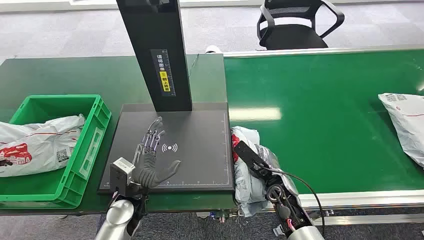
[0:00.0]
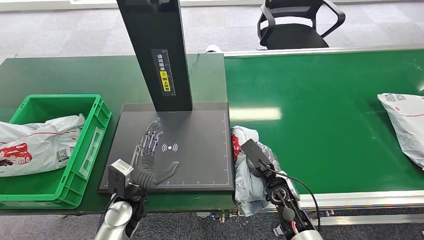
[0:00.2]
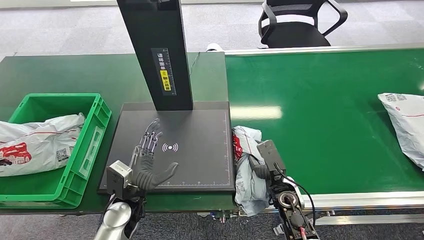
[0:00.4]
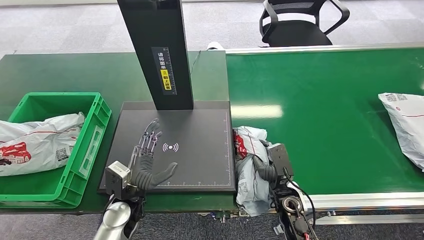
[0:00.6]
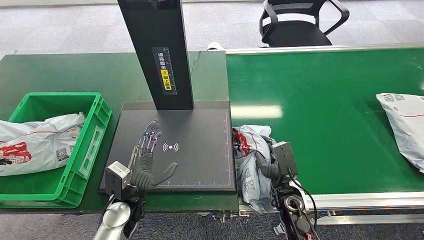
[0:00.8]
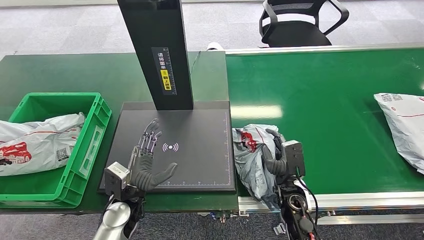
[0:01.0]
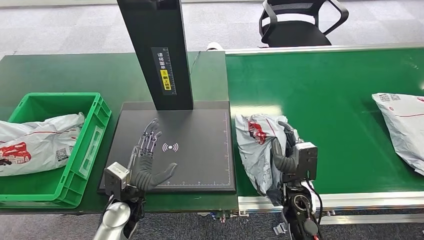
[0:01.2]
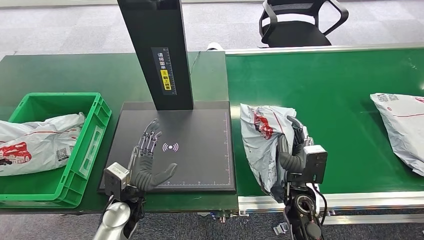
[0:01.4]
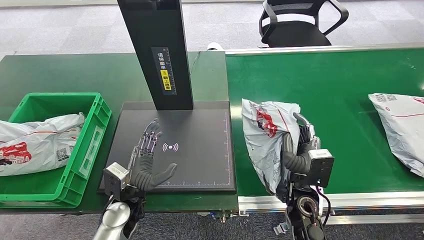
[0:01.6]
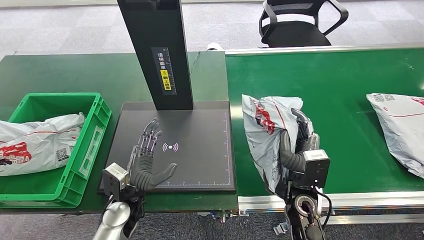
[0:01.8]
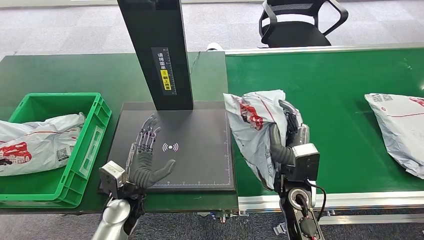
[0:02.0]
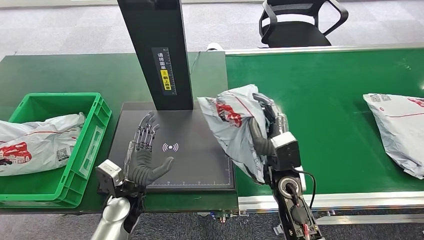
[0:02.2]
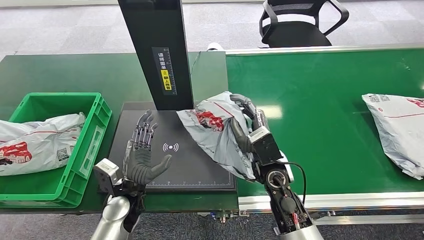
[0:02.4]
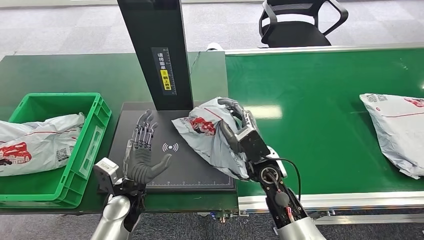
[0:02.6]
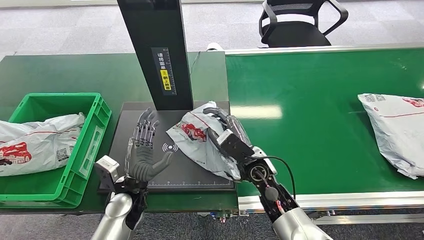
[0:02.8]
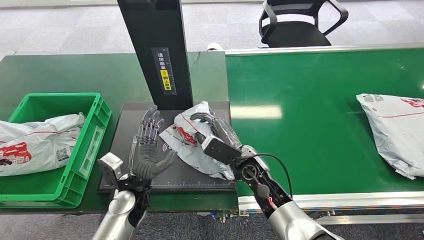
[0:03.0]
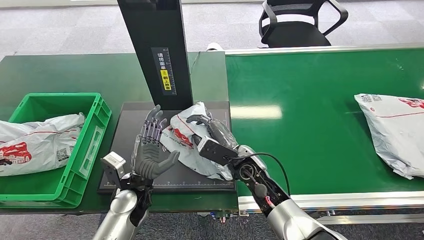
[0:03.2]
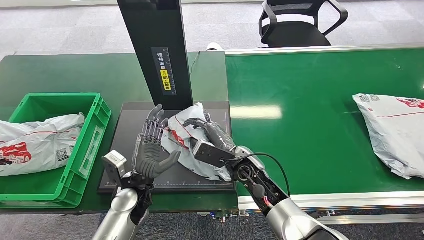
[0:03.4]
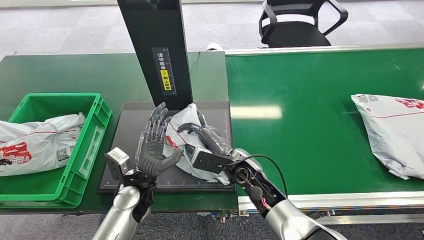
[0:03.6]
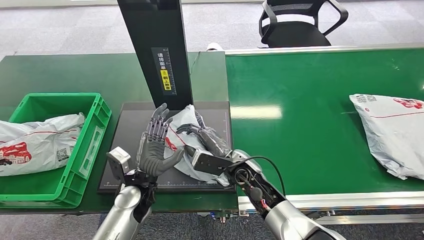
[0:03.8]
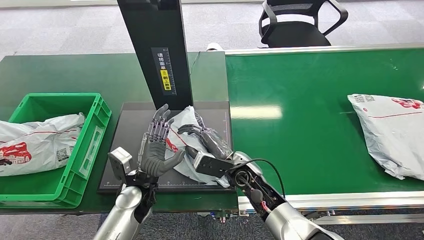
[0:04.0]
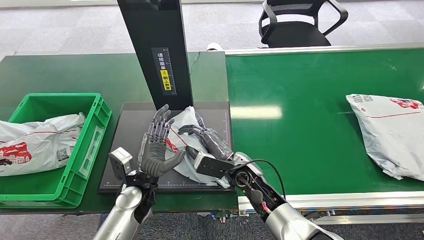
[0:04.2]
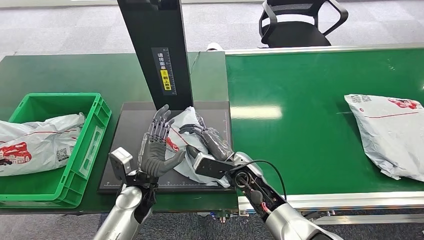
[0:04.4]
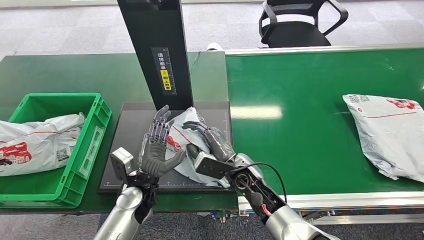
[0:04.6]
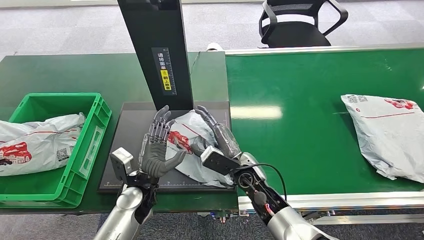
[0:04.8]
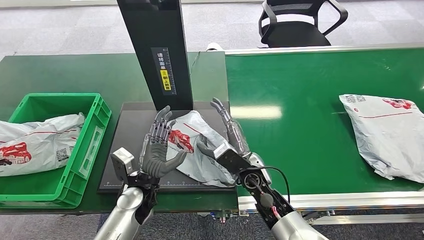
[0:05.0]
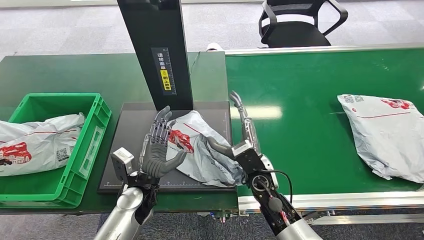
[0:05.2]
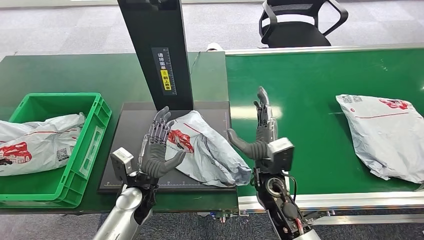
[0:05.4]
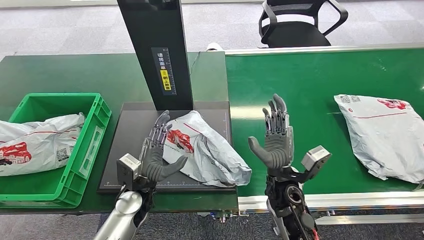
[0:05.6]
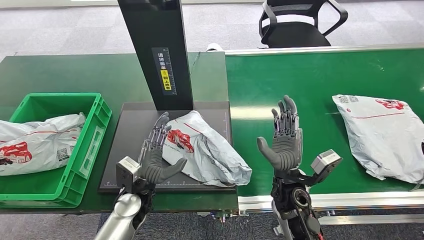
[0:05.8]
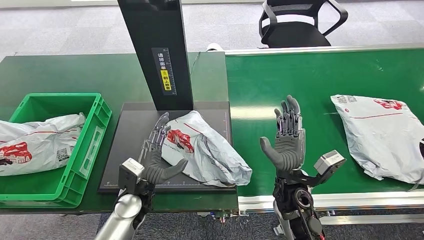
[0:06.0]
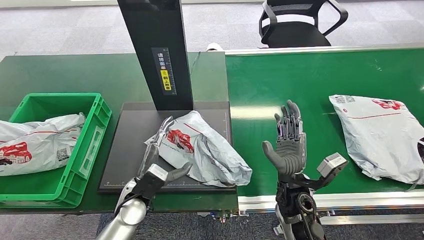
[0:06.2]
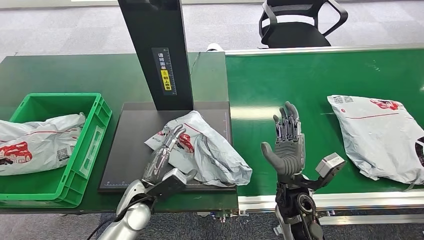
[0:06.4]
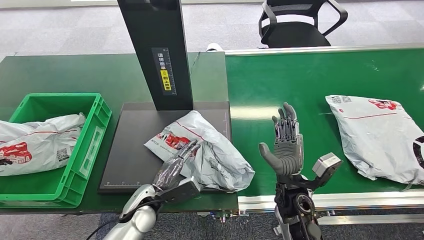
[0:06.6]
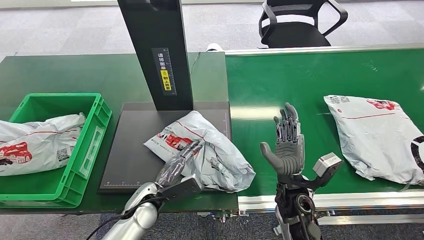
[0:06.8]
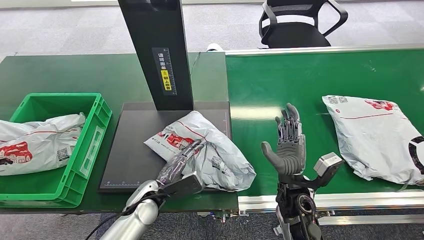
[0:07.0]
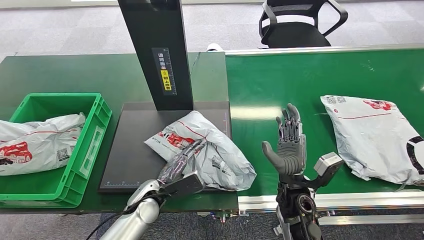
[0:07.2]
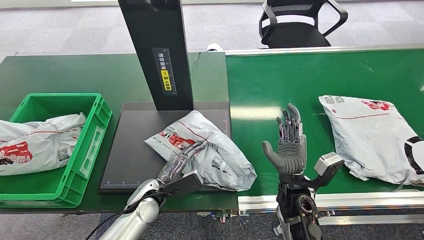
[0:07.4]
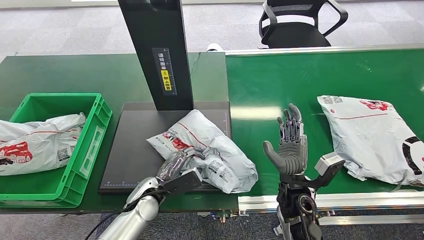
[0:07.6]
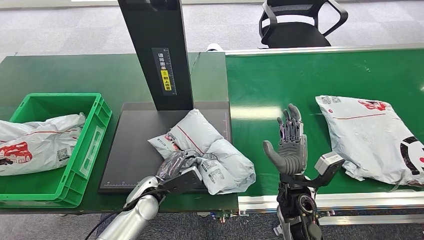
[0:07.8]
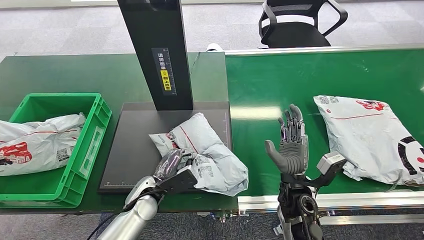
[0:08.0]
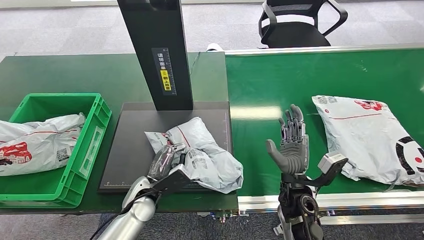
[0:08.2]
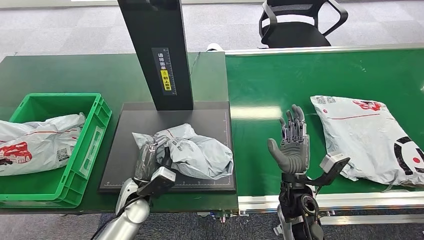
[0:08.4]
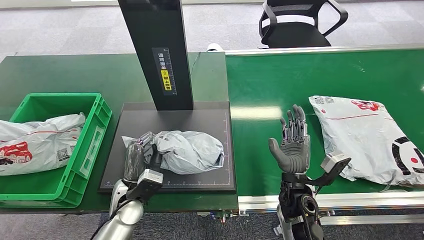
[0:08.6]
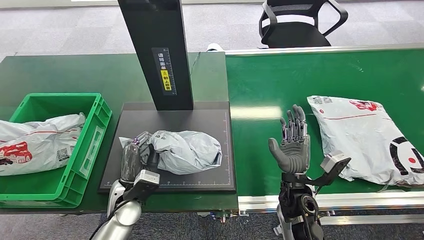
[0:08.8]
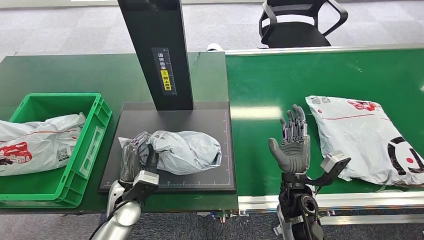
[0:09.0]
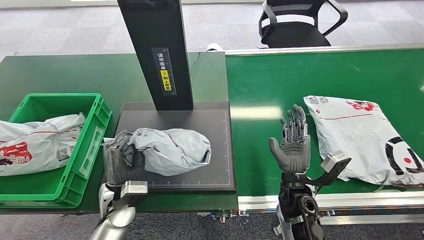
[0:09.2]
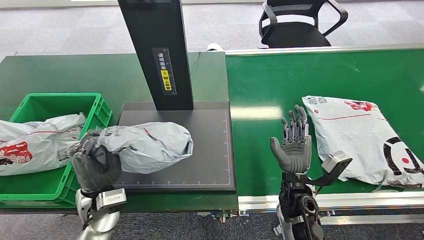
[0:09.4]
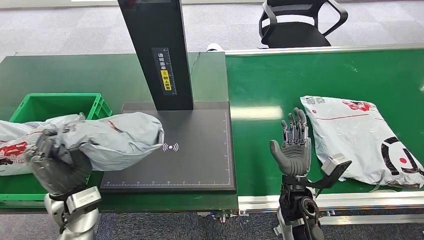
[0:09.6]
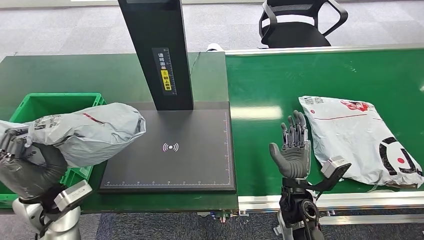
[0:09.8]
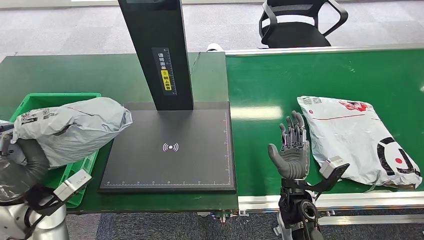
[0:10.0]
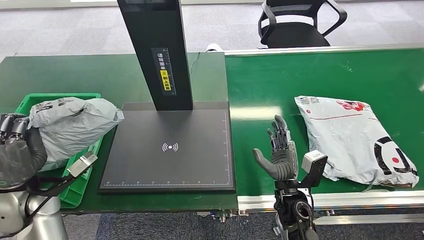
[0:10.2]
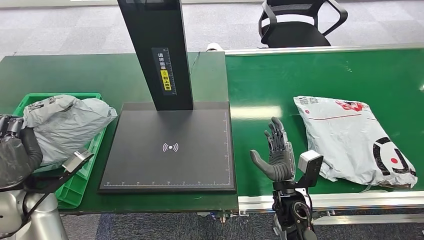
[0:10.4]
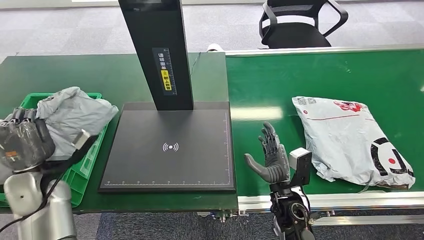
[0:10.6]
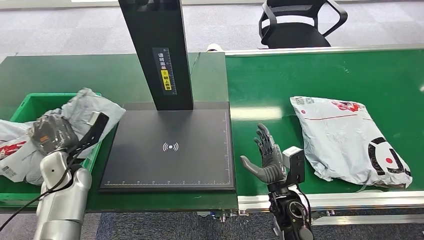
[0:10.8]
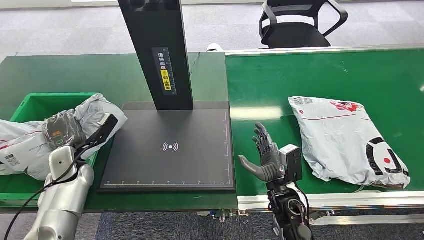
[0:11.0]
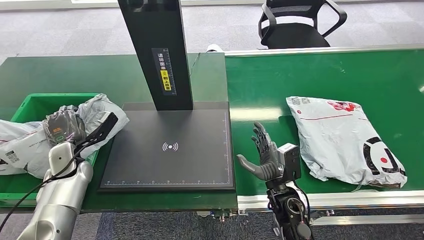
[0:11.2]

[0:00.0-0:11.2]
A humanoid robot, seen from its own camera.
Task of the whole recording: Weigh the package on the weighing device and place it in the left basket.
Step, 0:00.0 to 0:01.4: Pick up the package from the conveyor belt.
Step, 0:01.8 to 0:05.8: Place the package onto the inbound machine.
Step, 0:06.0 to 0:08.8: Pick up the package from the inbound machine.
0:01.6 to 0:03.2: The right hand heads to the left and forward, covering roughly 15 cm.
0:03.2 to 0:04.8: The hands make only small movements.
0:04.8 to 0:06.4: The right hand heads to the right and backward, covering roughly 10 cm.
0:06.4 to 0:08.0: The hands stay close to where they were, moving slightly.

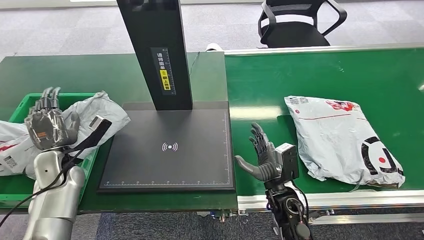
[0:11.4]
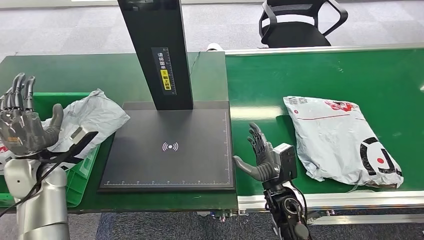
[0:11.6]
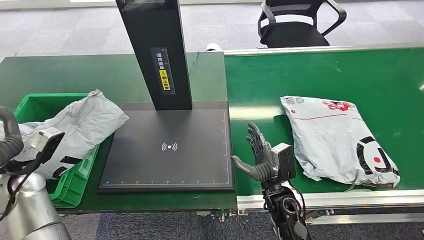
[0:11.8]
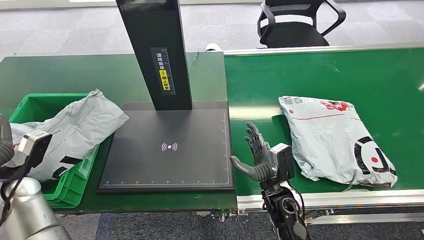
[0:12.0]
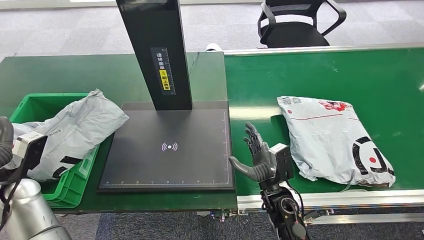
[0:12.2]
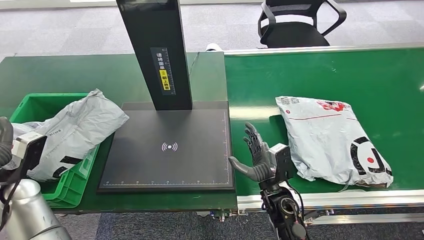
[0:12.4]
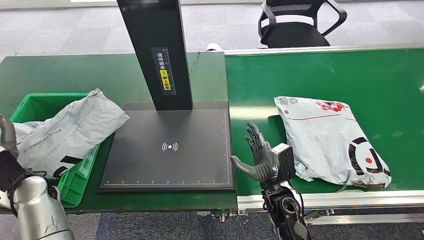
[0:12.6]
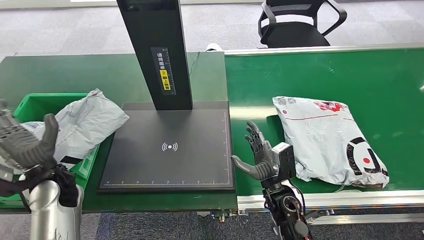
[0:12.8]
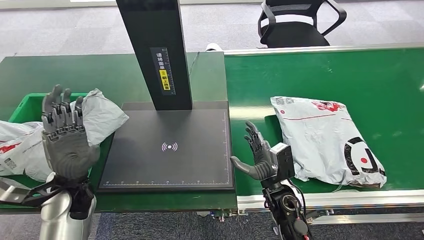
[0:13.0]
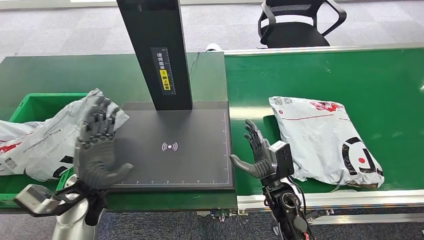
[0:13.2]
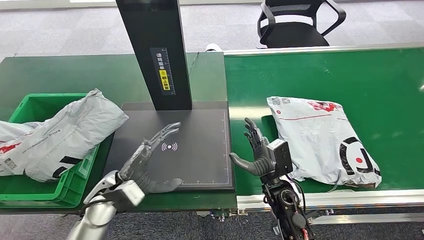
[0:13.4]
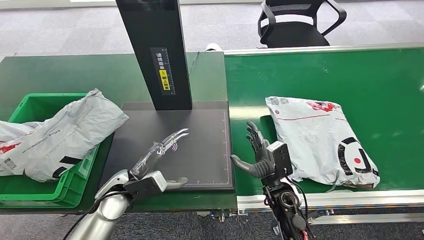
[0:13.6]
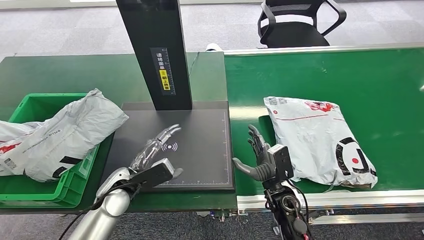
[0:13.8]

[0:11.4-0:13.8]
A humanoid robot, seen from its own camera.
Task of the whole recording: Weigh the package on the weighing device and place it in the left basket.
Step, 0:11.4 to 0:13.8: Place the package into the parcel locker.
0:11.4 to 0:12.6: The left hand shifts by approximately 5 cm.
0:12.6 to 0:13.8: The left hand travels to the right and downward by about 20 cm.

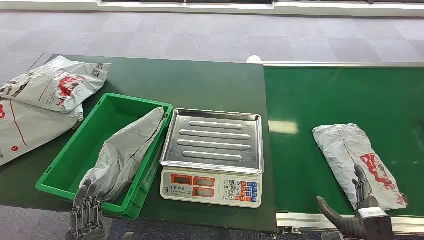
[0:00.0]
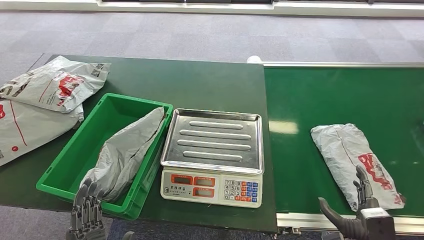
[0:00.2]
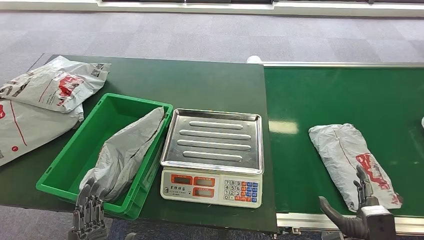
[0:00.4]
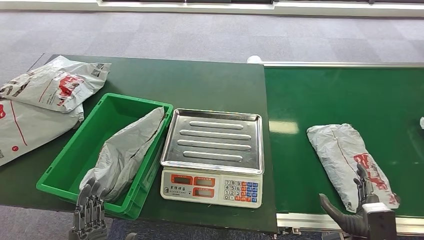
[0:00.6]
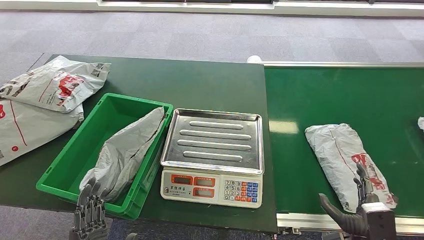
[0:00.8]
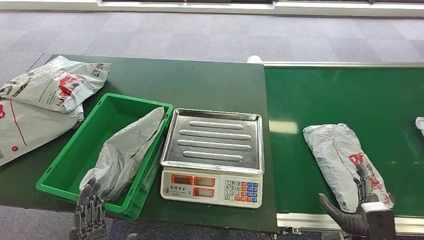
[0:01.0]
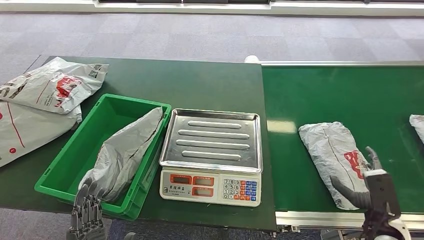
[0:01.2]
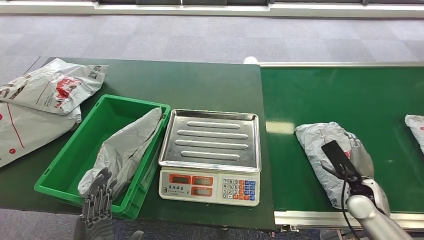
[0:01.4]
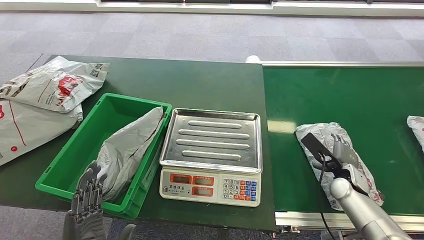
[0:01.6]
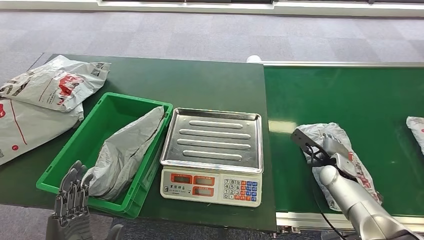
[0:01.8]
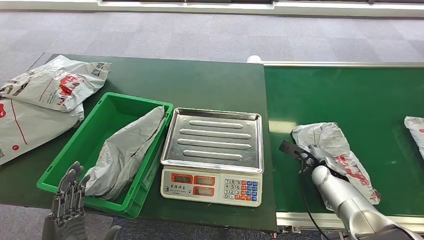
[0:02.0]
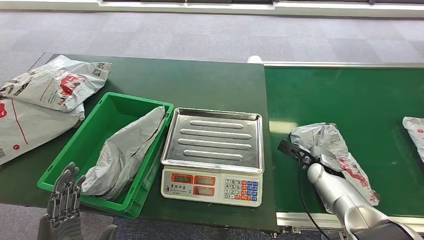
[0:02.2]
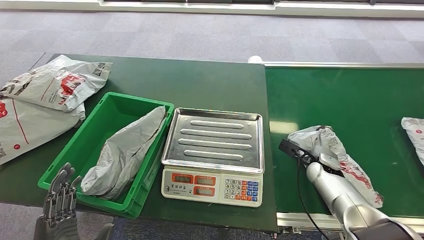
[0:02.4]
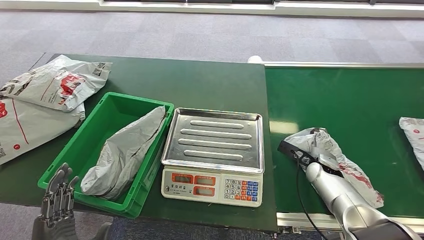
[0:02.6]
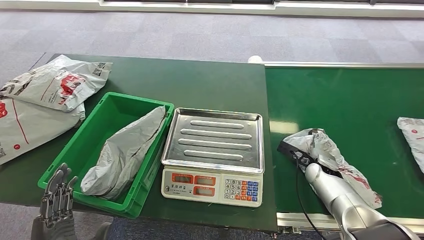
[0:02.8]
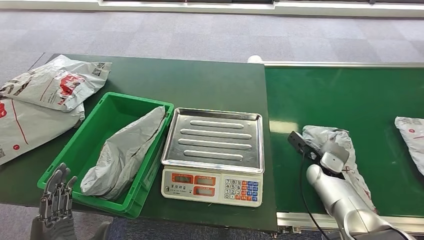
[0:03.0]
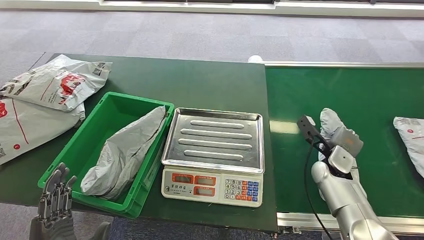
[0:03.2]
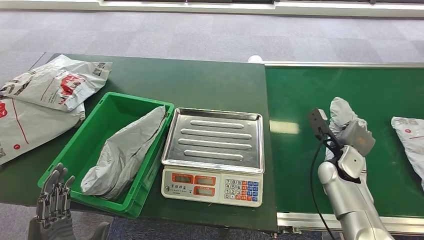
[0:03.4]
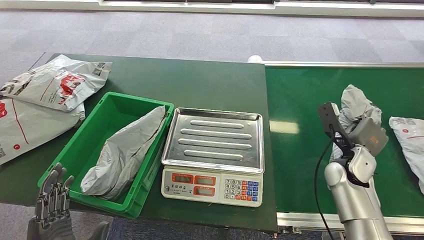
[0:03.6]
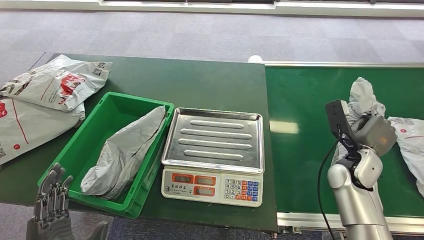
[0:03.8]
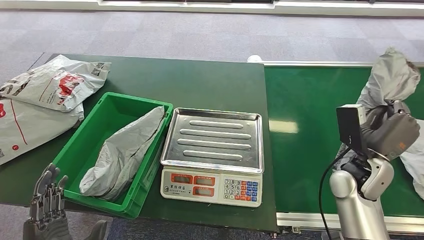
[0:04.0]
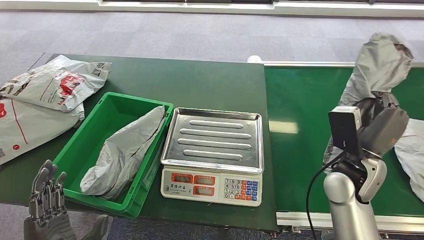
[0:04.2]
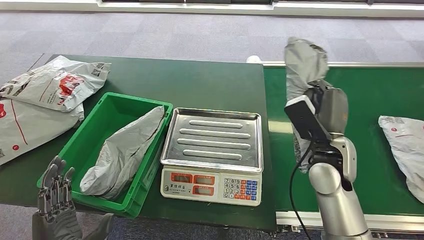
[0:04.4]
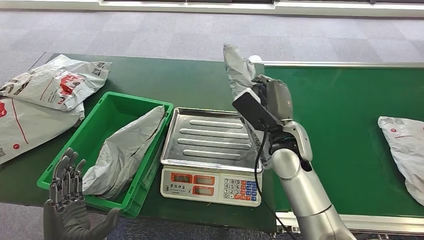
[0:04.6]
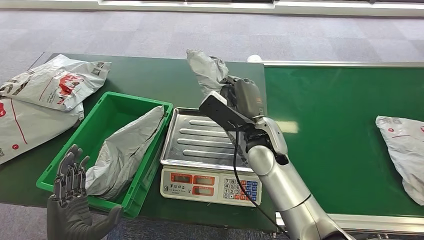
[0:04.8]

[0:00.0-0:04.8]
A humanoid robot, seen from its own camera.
Task of the whole recording: Weigh the package on the weighing device and place it in the left basket.
Step, 0:00.0 to 0:04.0: Pick up the package from the conveyor belt.
0:01.6 to 0:03.2: The right hand moves to the left, roughly 5 cm.
